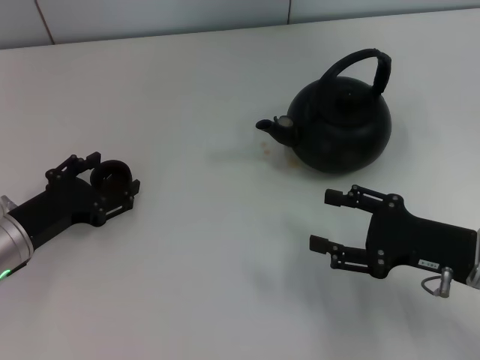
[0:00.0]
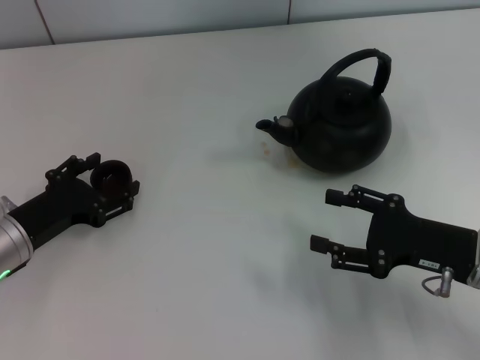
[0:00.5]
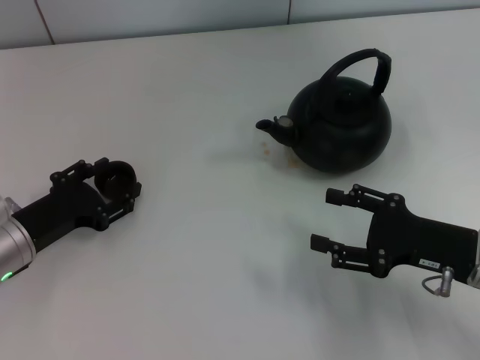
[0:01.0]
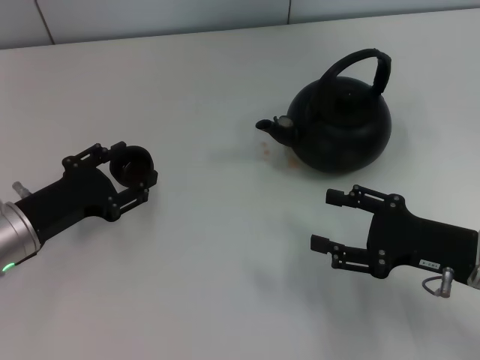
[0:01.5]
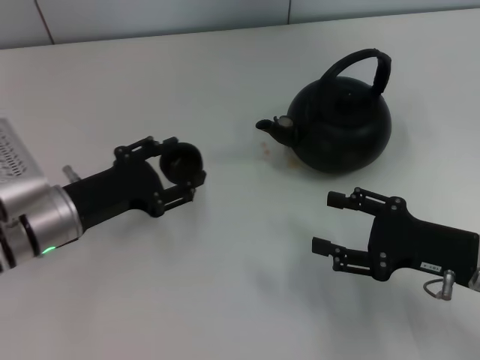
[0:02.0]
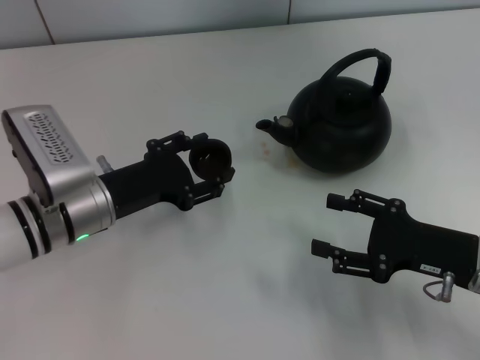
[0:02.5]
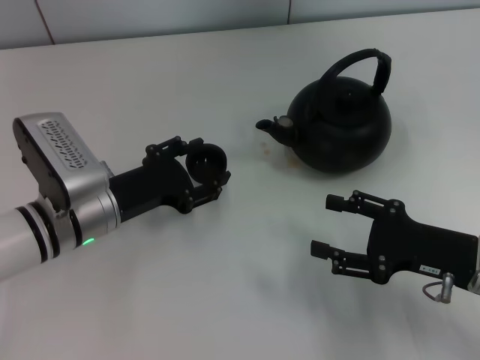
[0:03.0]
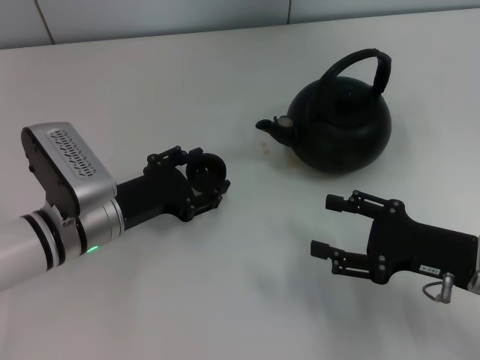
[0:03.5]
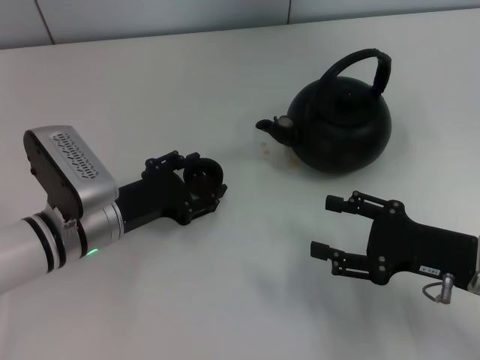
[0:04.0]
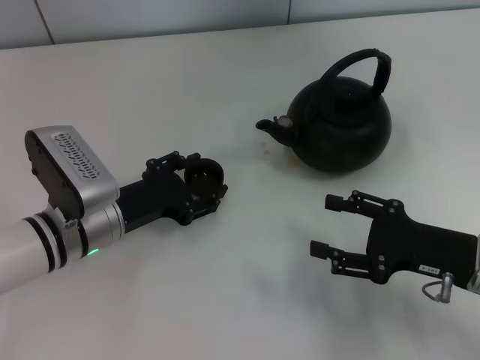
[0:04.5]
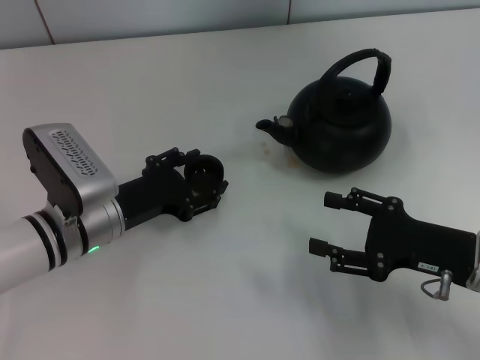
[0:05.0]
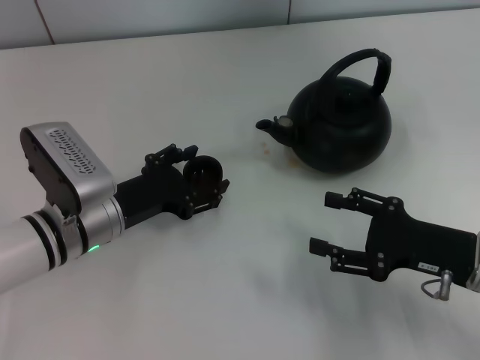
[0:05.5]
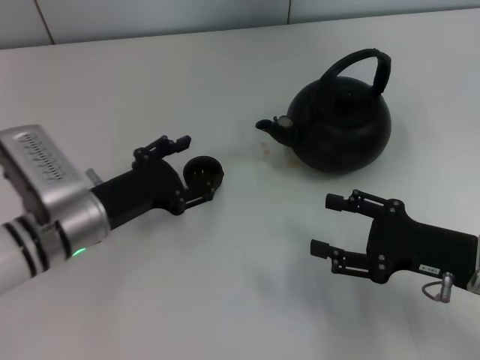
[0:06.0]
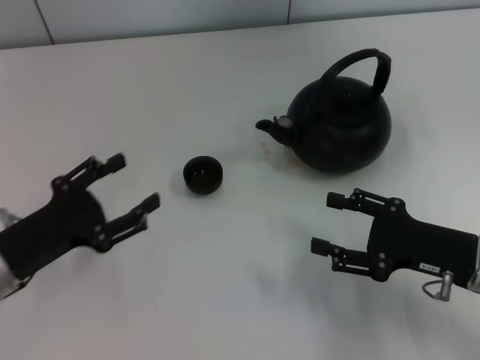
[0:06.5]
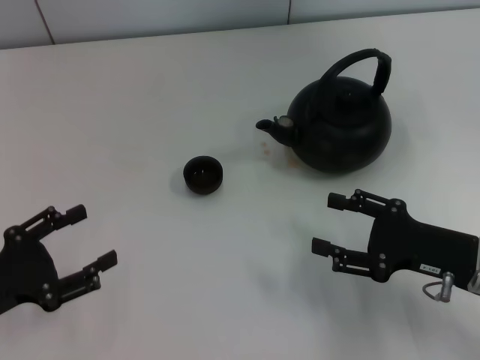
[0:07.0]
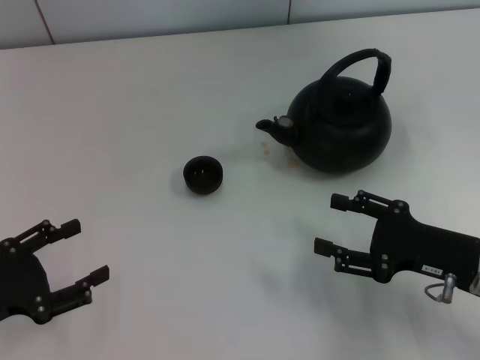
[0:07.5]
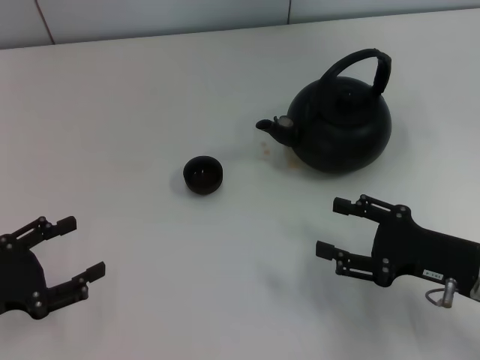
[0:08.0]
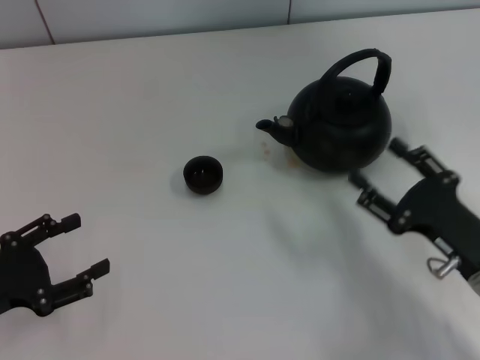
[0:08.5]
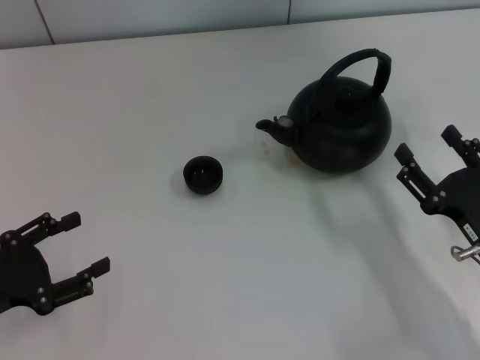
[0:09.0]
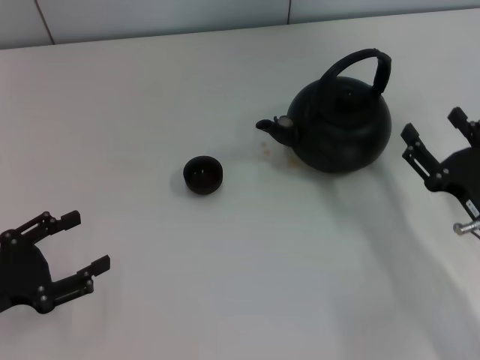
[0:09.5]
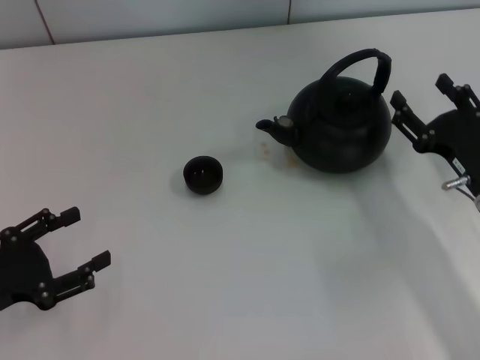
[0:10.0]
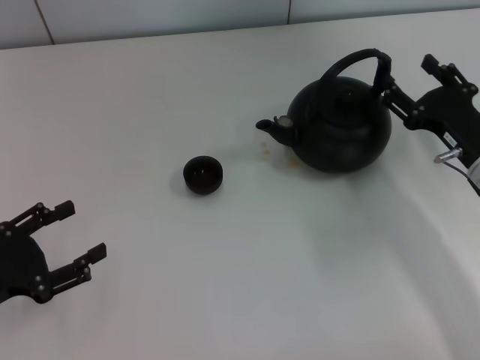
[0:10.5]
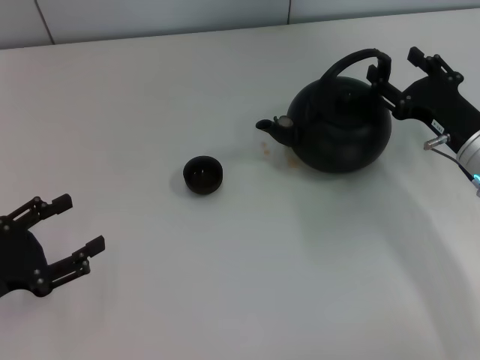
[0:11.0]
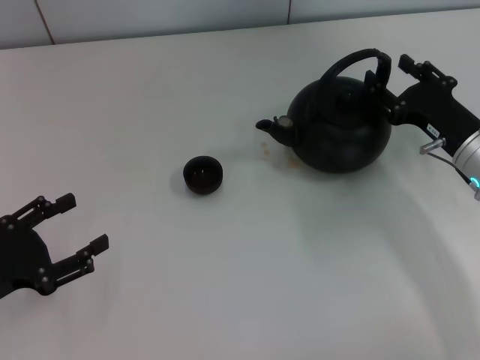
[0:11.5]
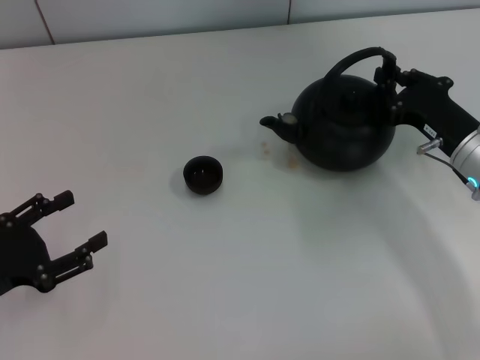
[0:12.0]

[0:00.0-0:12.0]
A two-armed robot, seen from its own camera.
Task of the whole recording: Grasp the handle of the teapot with one hand and pour tea into the teacup.
Step, 2.0 to 6.0 s: Place the teacup in the center of view with the left gripper.
0.0 to 2.0 s: The left gripper travels to the right by some 5 cm, and closes up.
2.0 to 4.0 s: The grippers stay close to where they were, moving slightly.
4.0 to 6.0 s: The left gripper opens up.
6.0 to 8.0 s: The left gripper goes approximately 15 cm to the left and backward.
10.0 to 12.0 s: The right gripper is displaced forward by approximately 5 cm, and closes up.

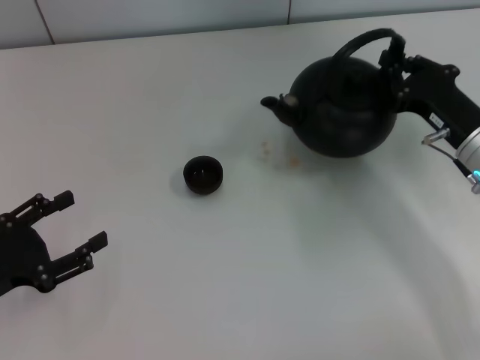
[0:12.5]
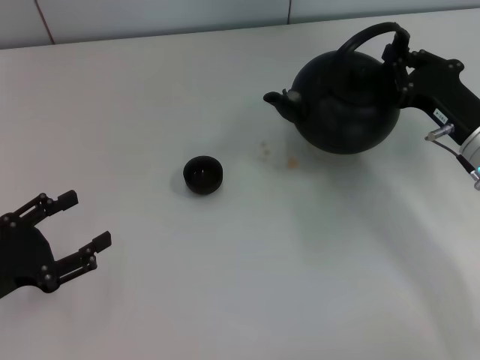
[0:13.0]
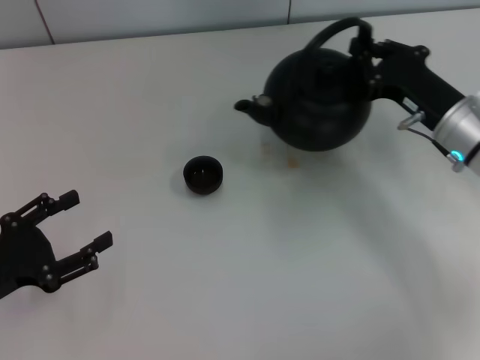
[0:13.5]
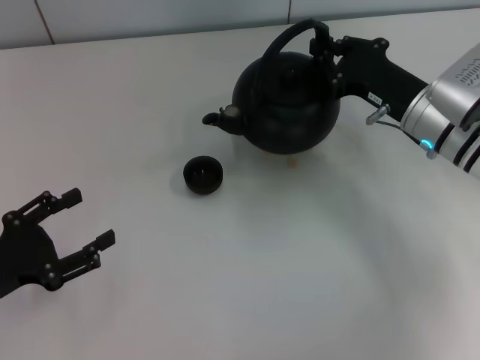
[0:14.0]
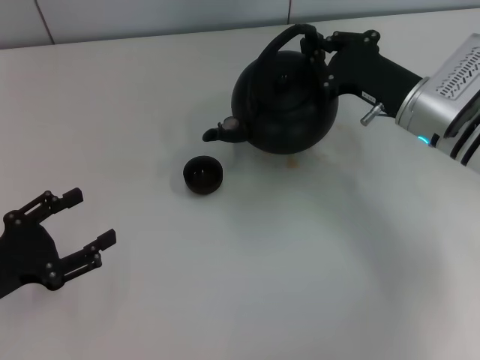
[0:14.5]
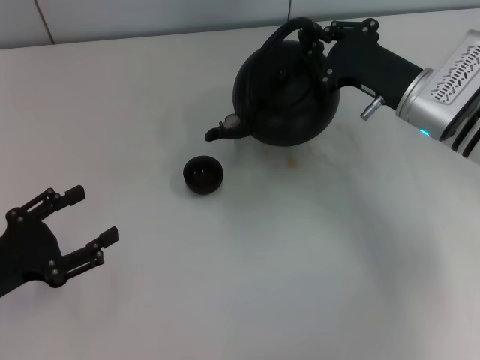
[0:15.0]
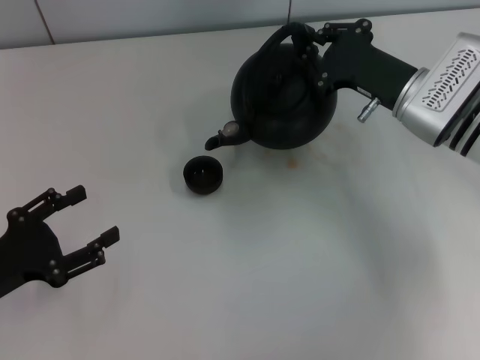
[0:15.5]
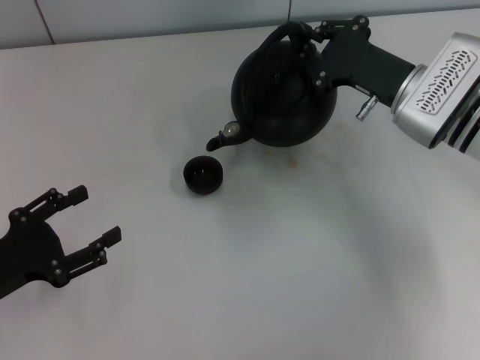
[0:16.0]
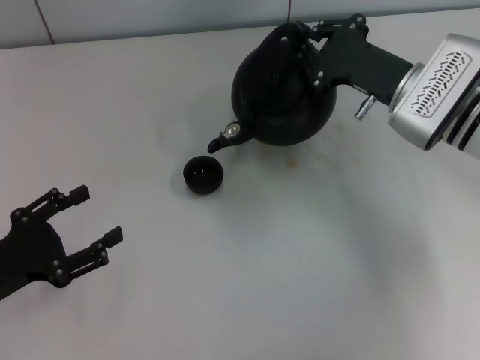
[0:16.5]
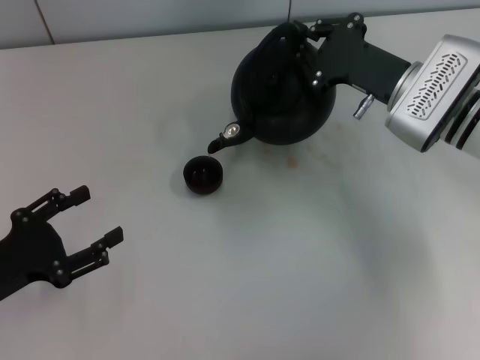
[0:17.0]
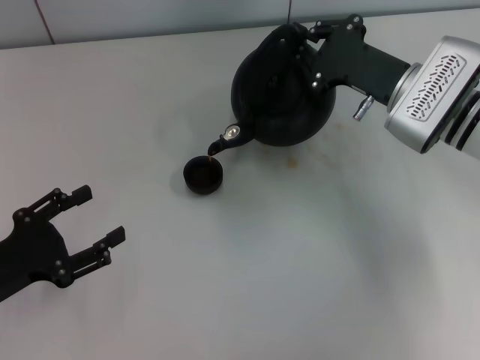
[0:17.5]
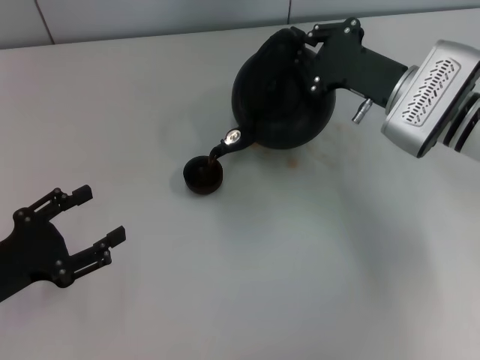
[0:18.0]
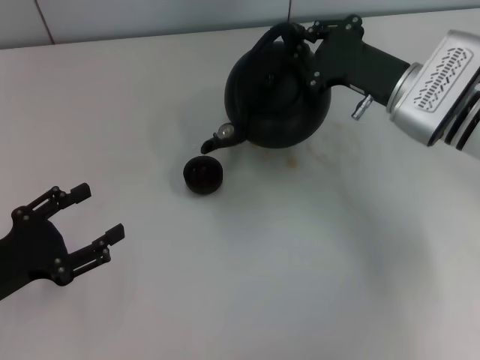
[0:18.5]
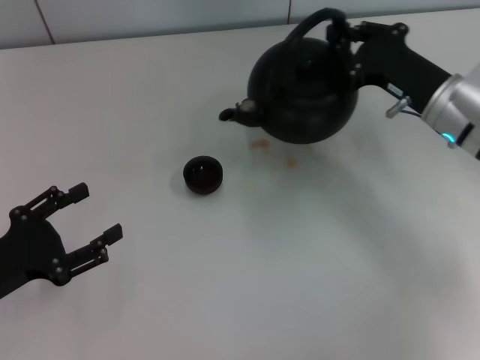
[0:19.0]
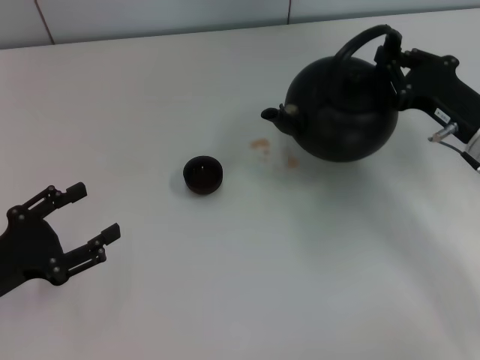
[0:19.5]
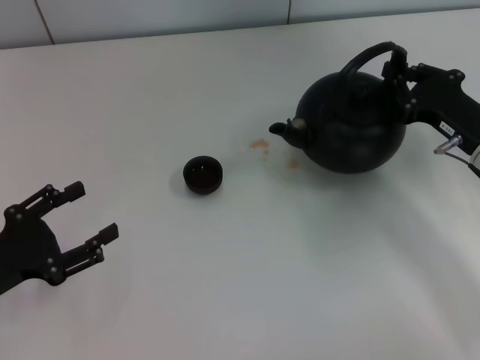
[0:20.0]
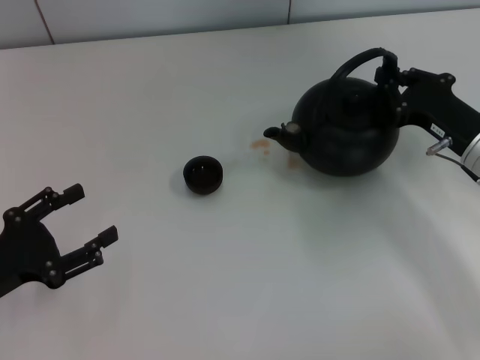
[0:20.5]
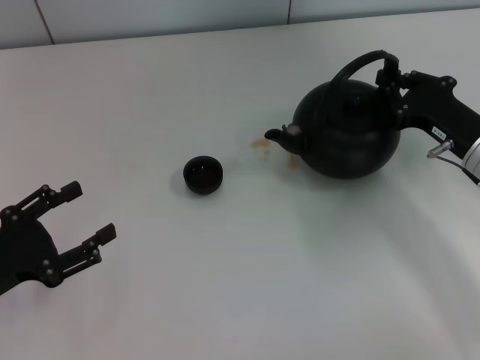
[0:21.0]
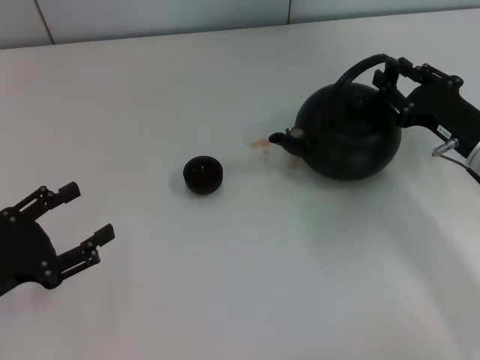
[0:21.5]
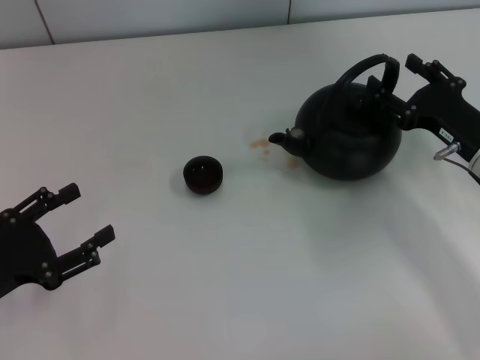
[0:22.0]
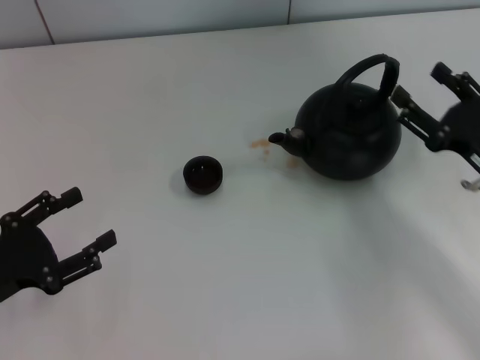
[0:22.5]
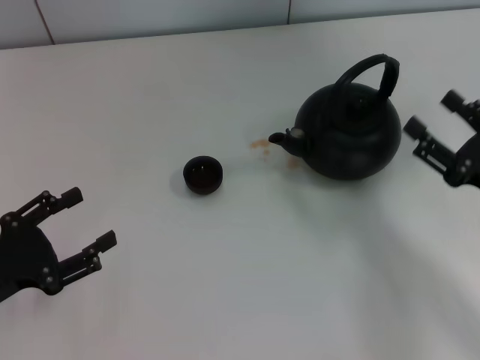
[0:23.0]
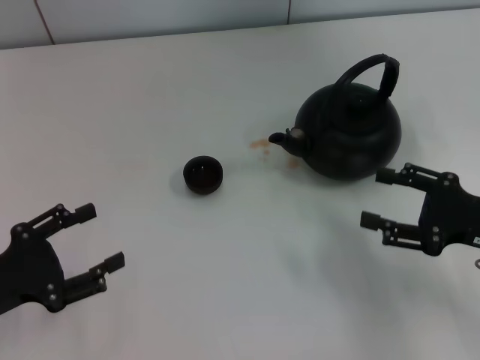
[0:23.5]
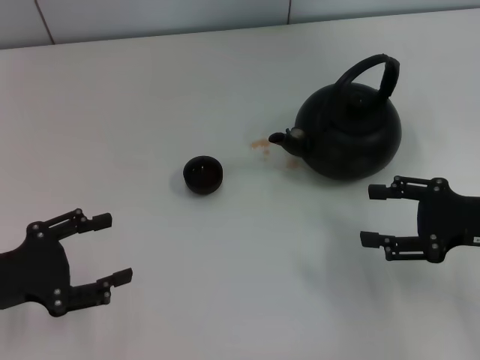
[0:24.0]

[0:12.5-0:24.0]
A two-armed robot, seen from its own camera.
Task of the whole recording: Grasp the handle of the teapot with one hand and pour tea into the teacup.
Step, 19.5 to 21.5 s: Put down the teapot with the right gripper.
12.5 to 14.5 s: The right gripper moves to the left, some 5 cm.
14.5 to 16.5 s: The grippers make only small movements.
16.5 to 18.5 s: Neither gripper changes place.
18.5 to 20.0 s: The right gripper travels to the right and backward by some 10 cm.
20.0 to 22.0 s: The right gripper opens up.
22.0 to 24.0 s: The right gripper moves backward, approximately 5 cm.

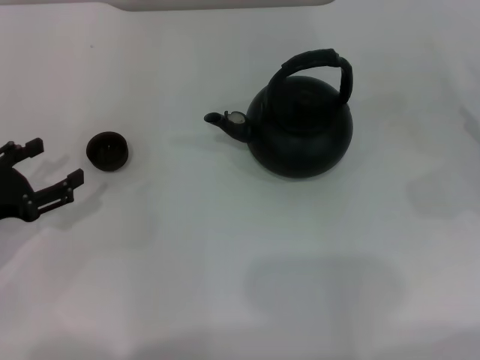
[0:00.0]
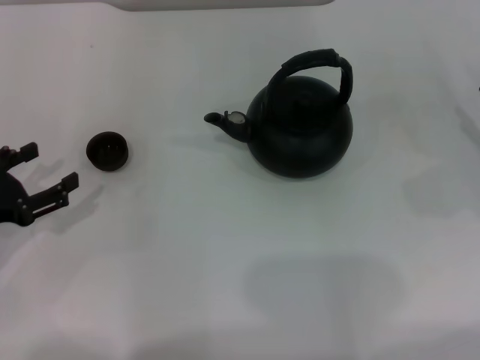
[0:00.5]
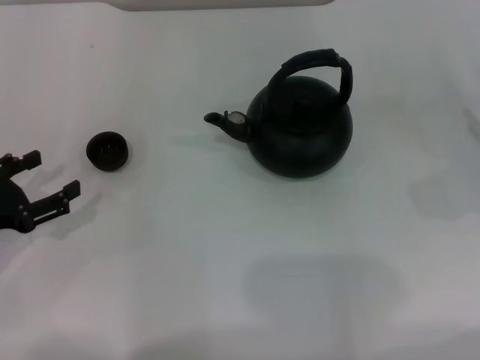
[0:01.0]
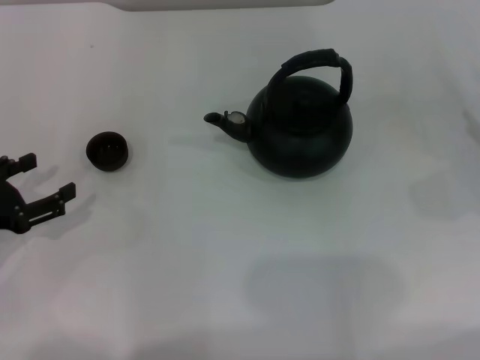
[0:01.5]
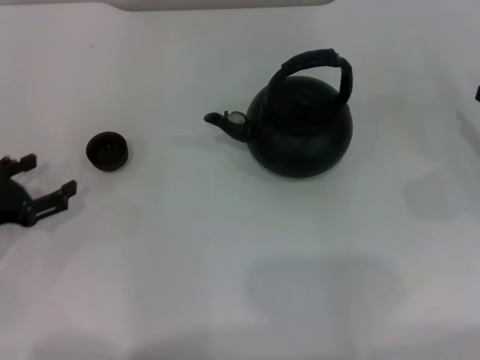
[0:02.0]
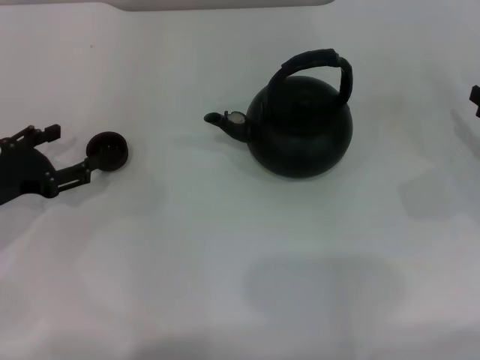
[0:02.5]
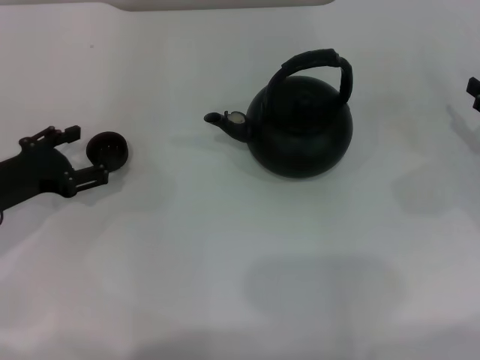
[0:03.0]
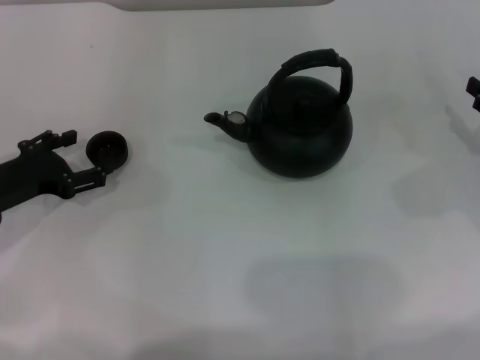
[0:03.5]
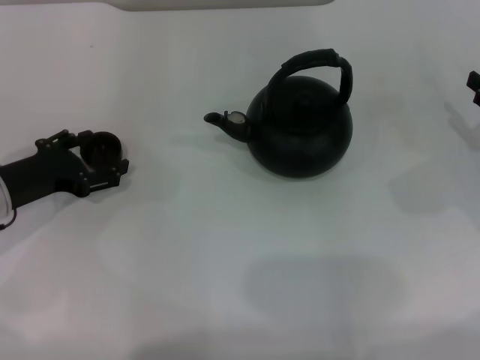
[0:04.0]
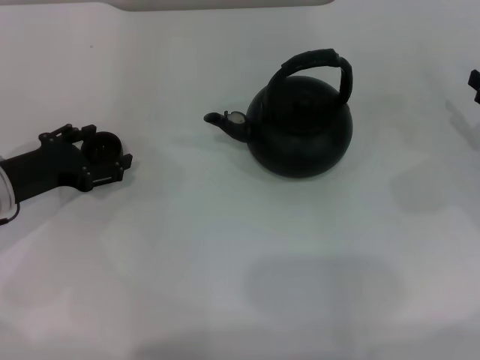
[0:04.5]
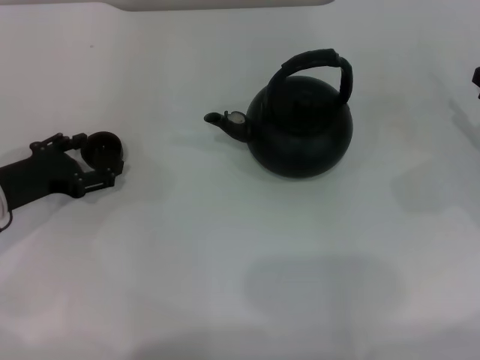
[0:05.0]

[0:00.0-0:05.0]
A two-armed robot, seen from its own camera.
Task of the whole recording: Grasp the handle of the teapot with one hand and pour tea into the teacup.
0.0 to 2.5 s: There are only small adjustments of the grippers.
2.5 to 5.0 s: There are only small adjustments of the grippers.
